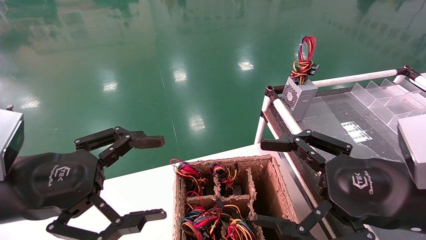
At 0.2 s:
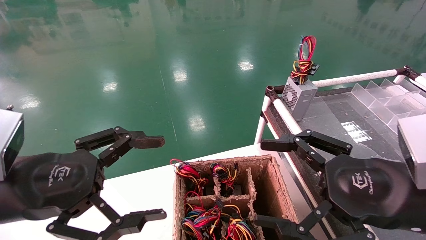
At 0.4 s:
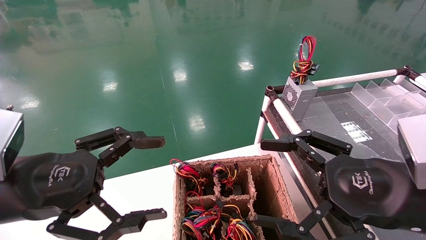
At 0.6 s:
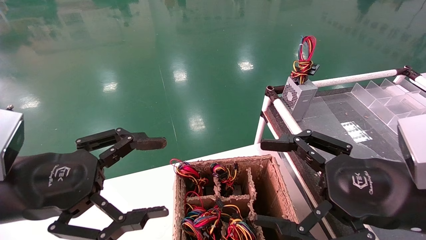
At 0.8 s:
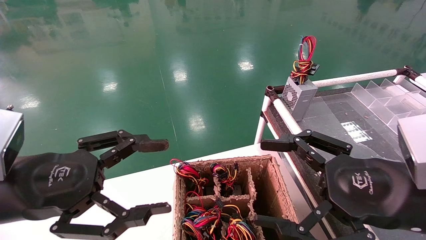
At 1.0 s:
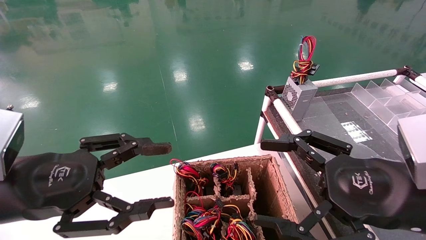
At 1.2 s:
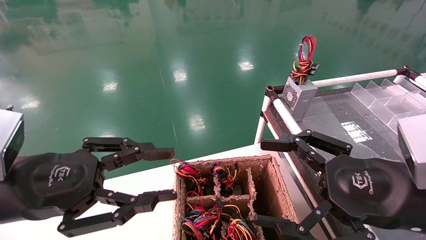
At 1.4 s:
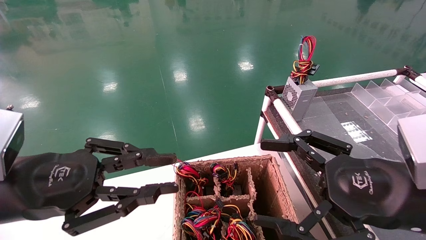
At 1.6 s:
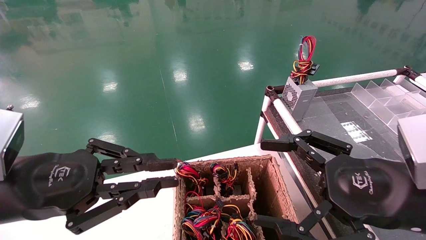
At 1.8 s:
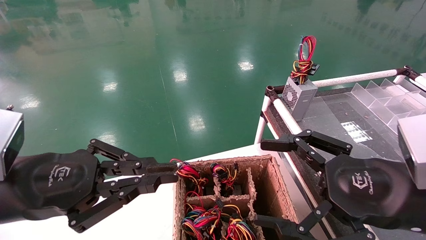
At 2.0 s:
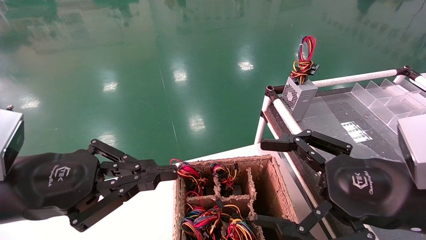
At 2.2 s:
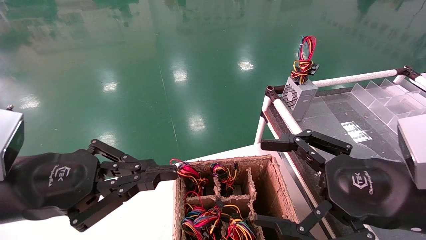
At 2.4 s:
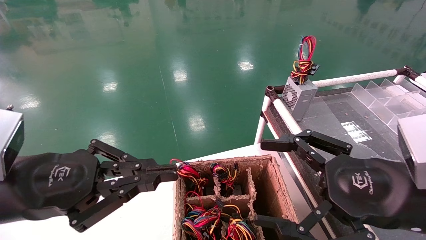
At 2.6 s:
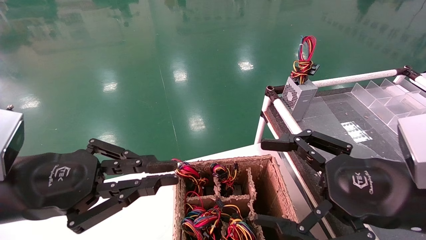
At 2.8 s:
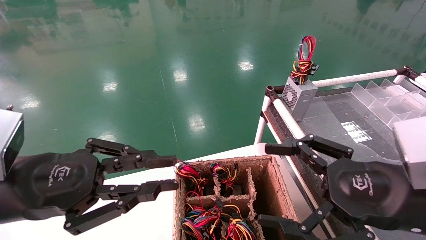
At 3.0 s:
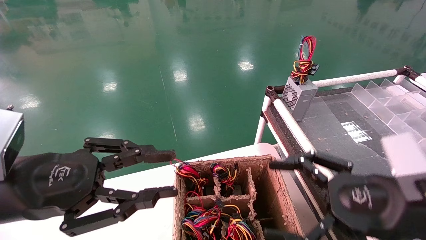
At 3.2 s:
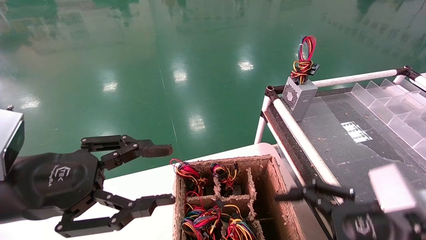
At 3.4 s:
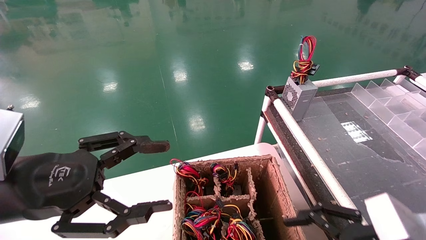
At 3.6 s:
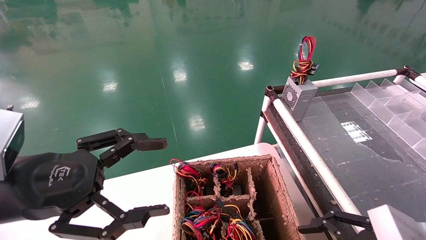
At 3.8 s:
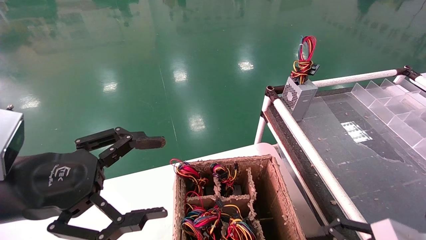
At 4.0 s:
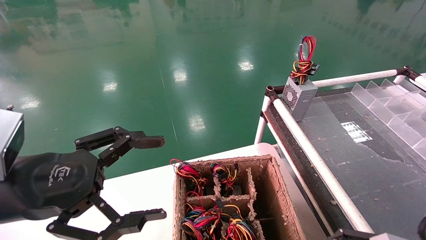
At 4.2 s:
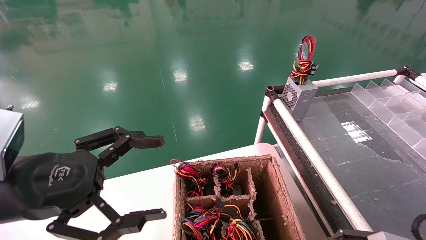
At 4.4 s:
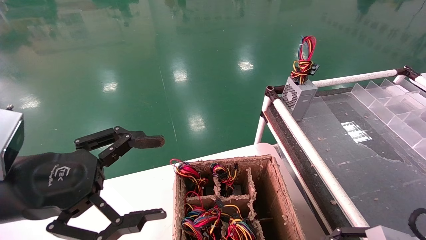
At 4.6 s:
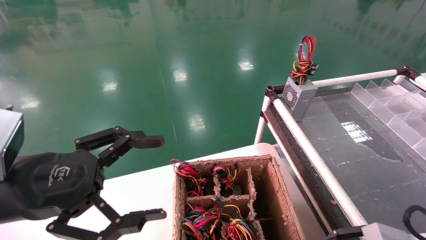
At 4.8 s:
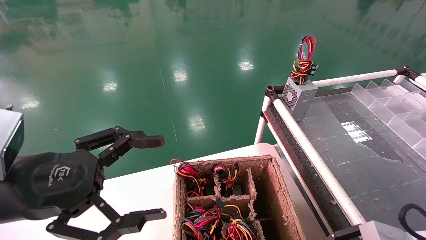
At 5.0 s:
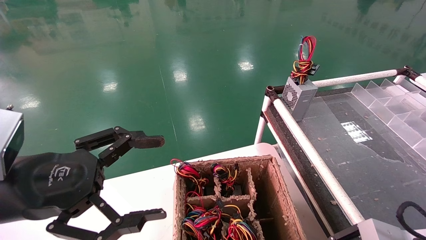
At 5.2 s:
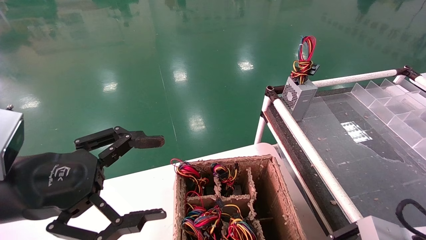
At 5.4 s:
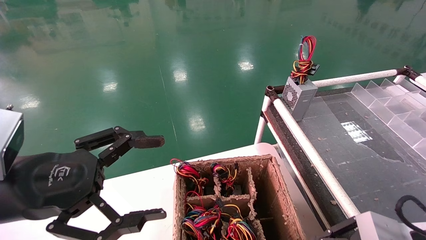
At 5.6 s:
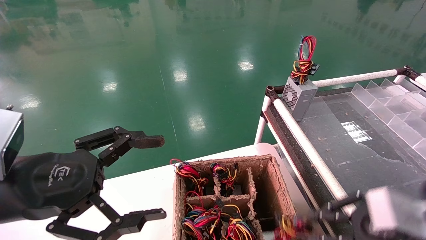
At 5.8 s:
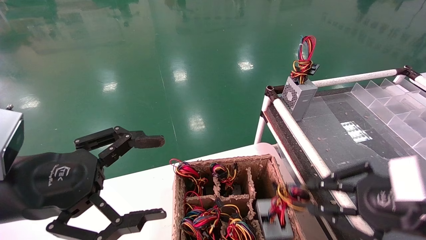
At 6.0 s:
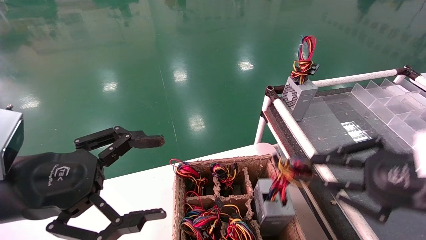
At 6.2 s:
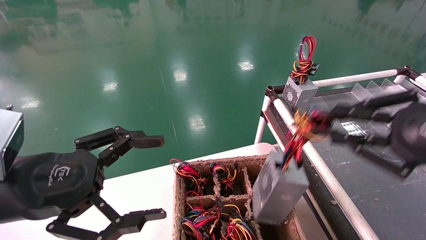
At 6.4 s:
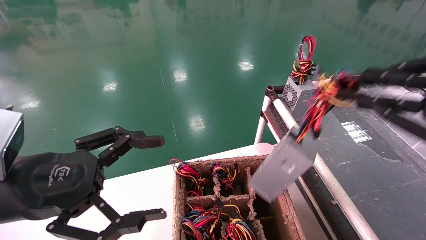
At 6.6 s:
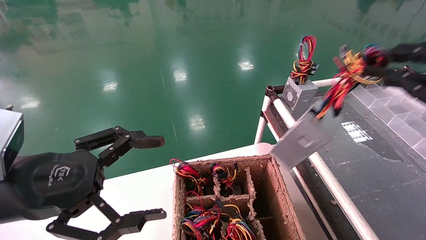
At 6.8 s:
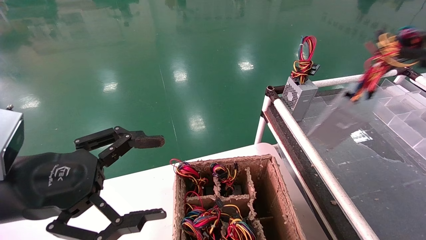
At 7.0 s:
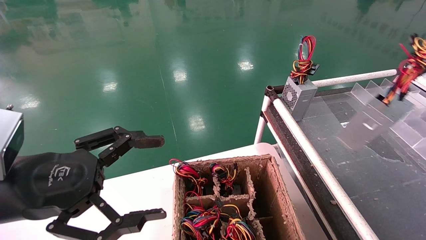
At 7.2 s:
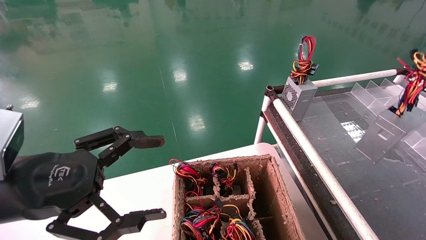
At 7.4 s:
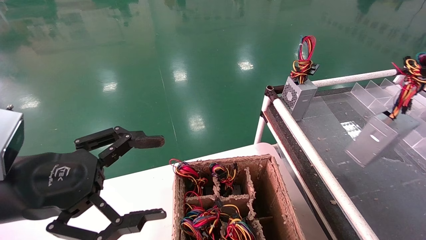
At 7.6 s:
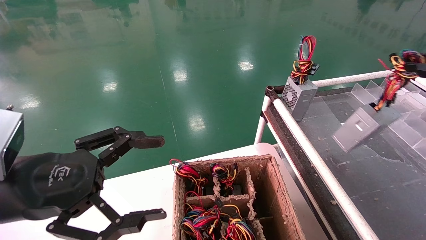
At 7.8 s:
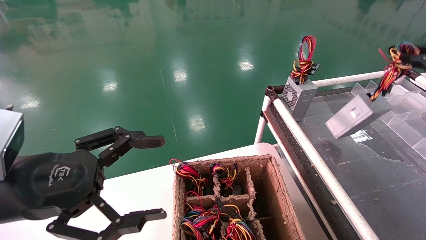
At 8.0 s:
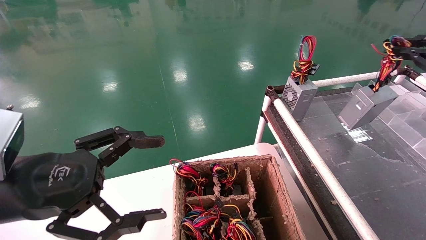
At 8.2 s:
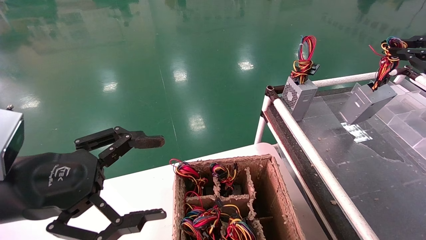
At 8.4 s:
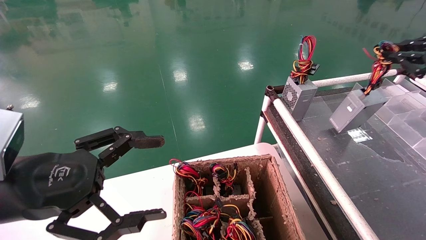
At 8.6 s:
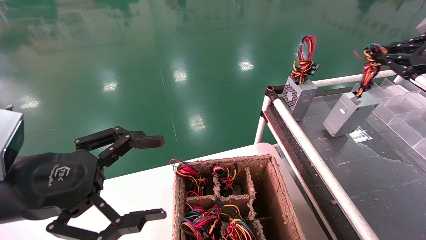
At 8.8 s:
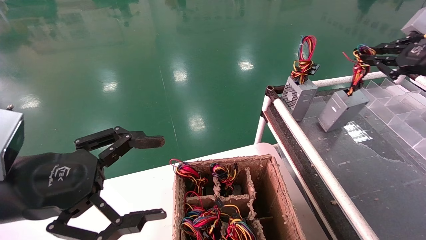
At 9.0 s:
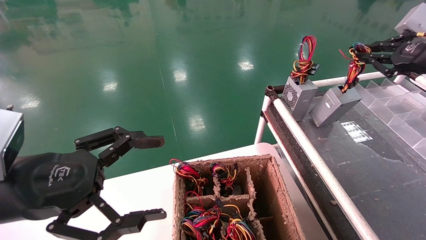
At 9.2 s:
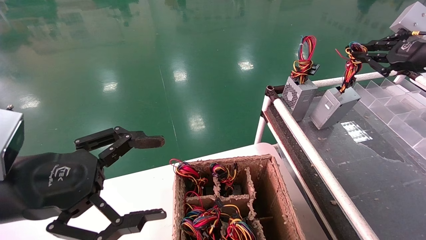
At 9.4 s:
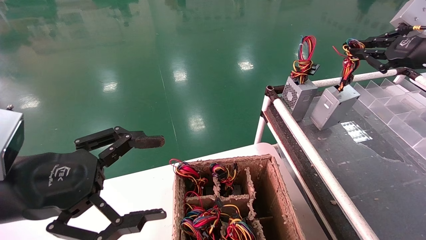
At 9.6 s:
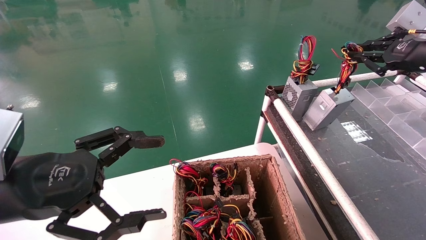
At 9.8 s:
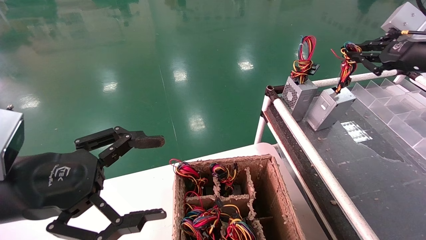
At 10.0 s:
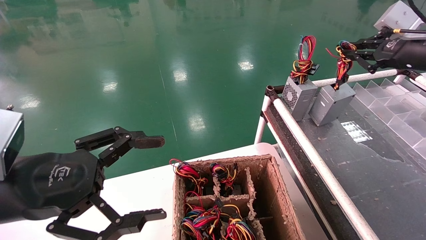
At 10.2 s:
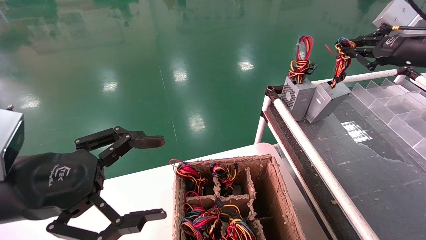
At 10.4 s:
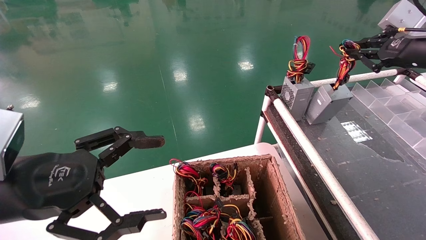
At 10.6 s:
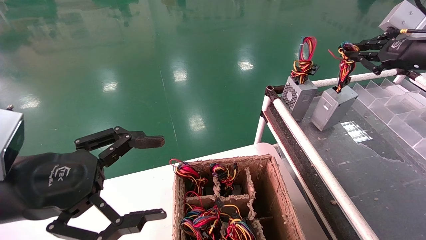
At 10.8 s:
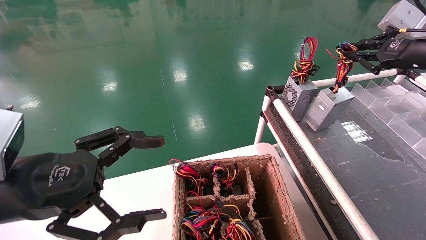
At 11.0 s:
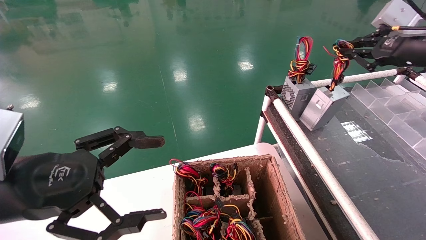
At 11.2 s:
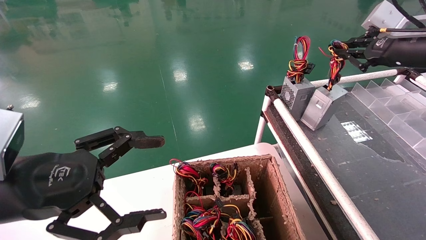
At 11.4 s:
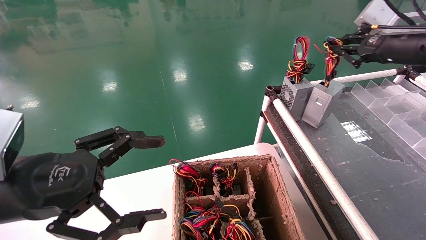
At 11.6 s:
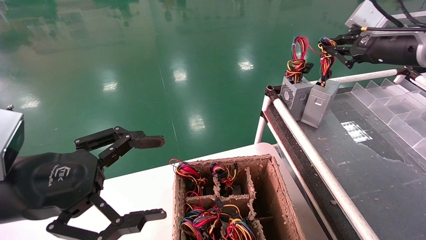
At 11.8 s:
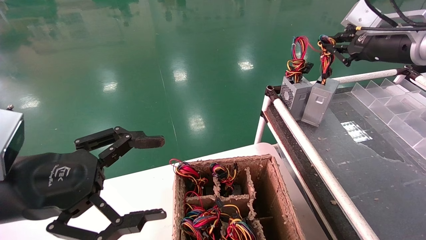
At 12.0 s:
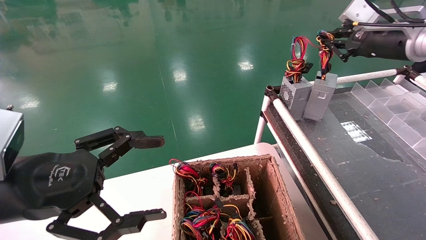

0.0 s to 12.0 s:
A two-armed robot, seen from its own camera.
Step, 2.0 to 5.4 s: Grab and lift the power supply from the large box.
0.0 to 1.6 s: The left gripper closes its fingers.
1.6 to 3.0 s: The grippers make only small movements.
3.0 to 4.4 s: The right gripper is displaced downward and to the right by about 10 cm. Meanwhile the left gripper opens.
4.4 to 6.0 s: The right gripper shifts some 10 cm upward, and closes its fingers.
6.0 to 7.6 s: The right gripper travels to the right, upward and forward by roughly 20 cm.
7.6 to 9.0 s: The right gripper is displaced forward and to the left by approximately 15 cm.
9.0 to 10.4 s: The grippers stay close to where they were, moving slightly.
10.4 to 12.0 s: The right gripper is displaced to the left by about 5 cm.

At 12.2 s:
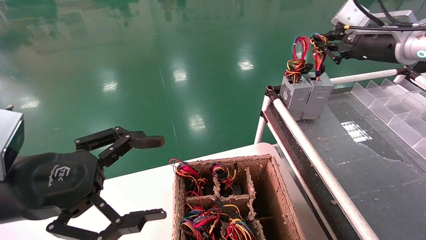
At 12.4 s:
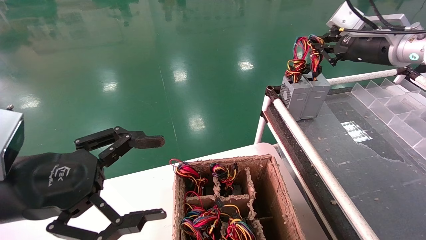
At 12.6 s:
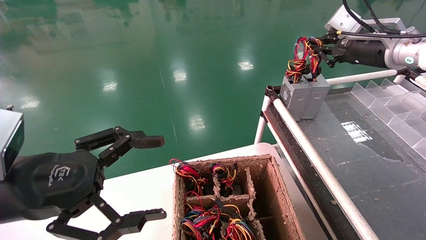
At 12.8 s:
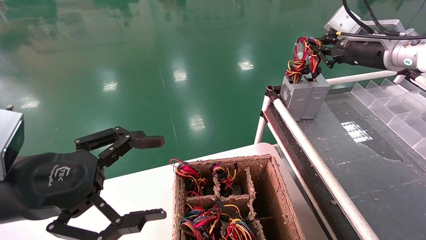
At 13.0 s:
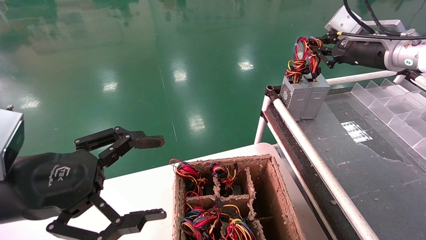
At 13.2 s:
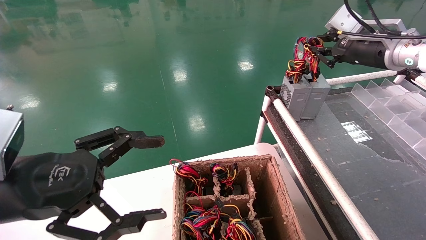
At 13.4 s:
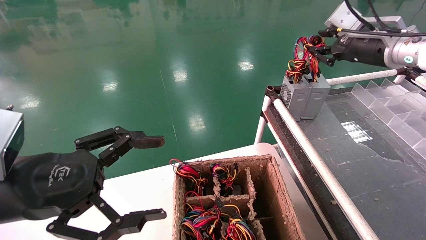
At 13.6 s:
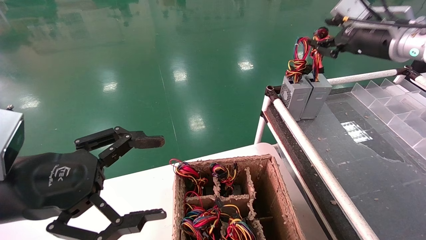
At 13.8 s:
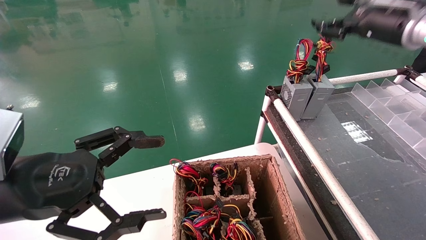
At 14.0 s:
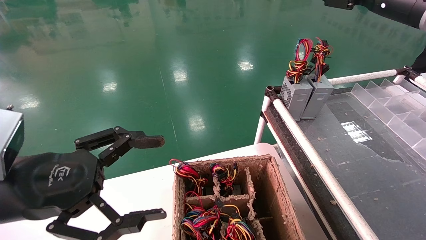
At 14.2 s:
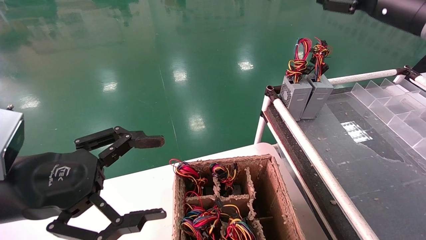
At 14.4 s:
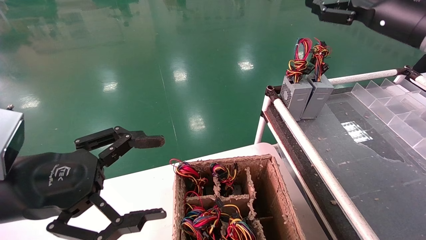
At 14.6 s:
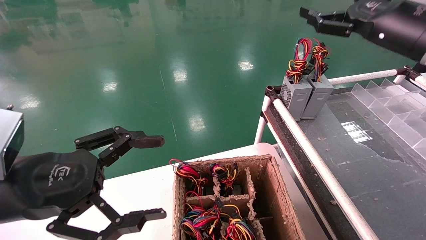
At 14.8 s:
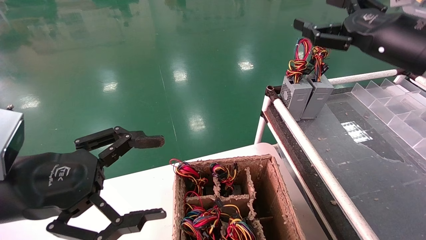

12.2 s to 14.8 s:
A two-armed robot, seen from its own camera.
12.2 to 13.4 s: The grippers stay close to where they were, moving slightly.
13.4 to 14.8 s: The right gripper is displaced backward by some 10 cm, and opens.

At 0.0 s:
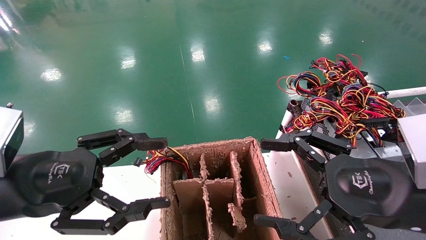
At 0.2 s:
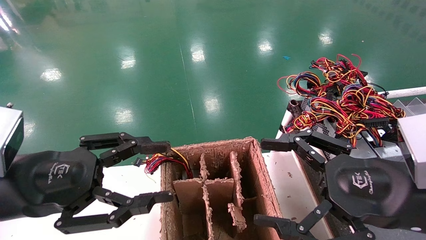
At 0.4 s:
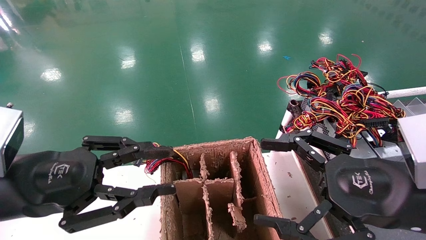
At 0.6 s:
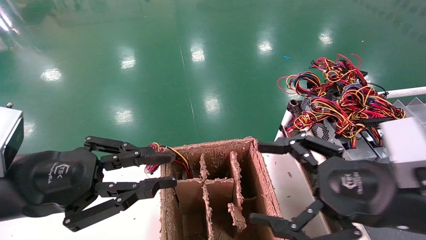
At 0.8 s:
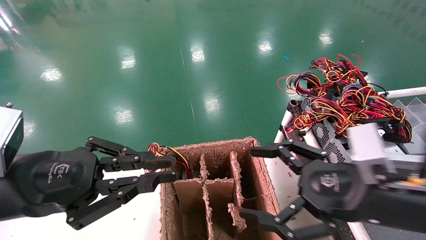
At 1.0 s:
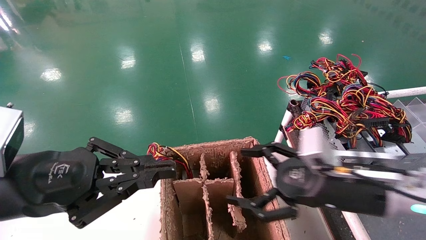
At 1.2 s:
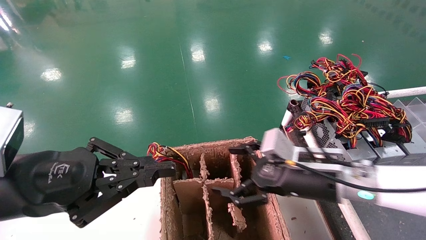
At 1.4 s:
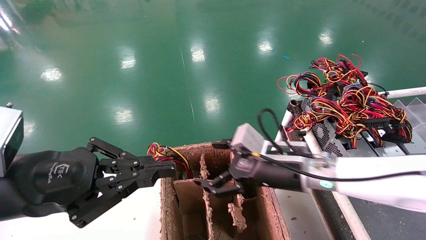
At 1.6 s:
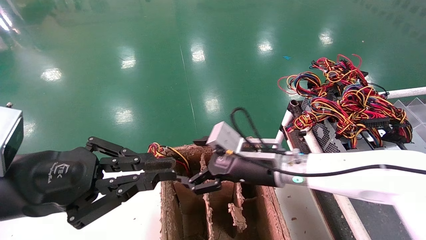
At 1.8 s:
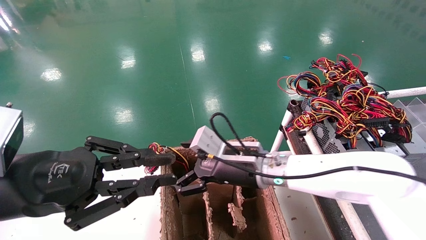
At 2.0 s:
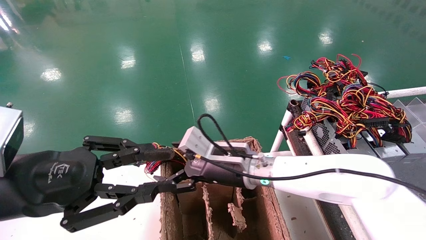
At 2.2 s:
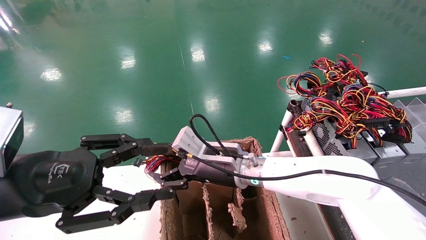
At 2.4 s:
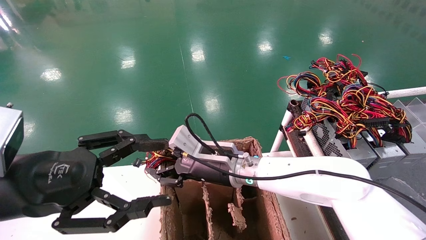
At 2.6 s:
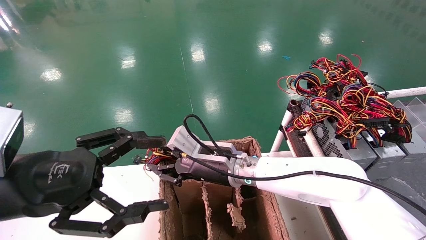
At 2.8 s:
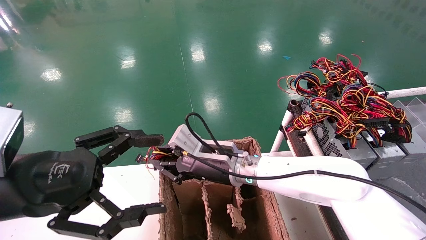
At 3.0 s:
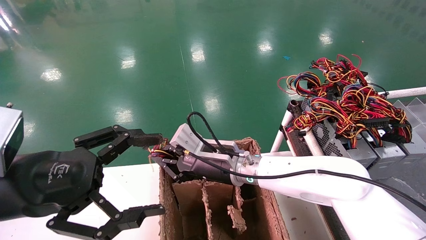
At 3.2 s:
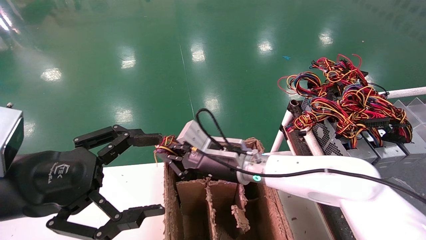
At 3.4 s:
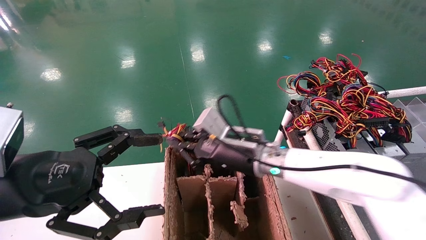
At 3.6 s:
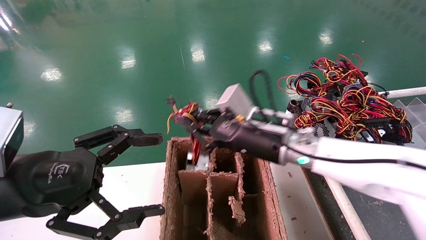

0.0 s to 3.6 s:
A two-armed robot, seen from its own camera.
Step, 1.0 to 3.0 s: Grab and lift the power supply from the large box.
0.0 to 1.8 s: The right gripper travels to the left and forward by about 25 cm, while the left gripper closes its fingers.
1.8 to 3.6 s: The right gripper travels upward by about 5 cm, and closes its fingers, while the left gripper opens up.
